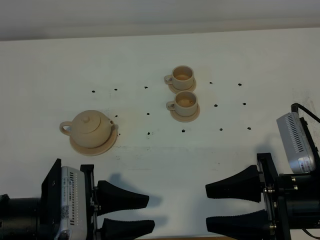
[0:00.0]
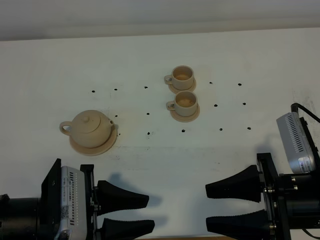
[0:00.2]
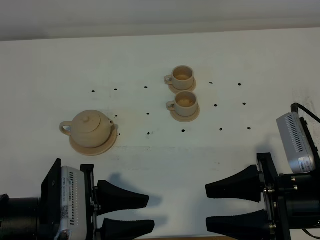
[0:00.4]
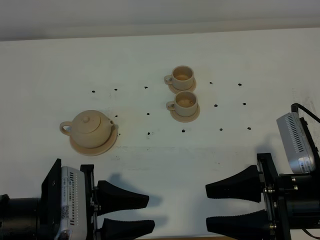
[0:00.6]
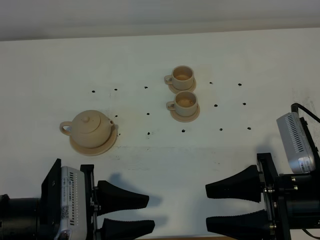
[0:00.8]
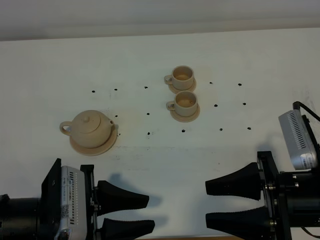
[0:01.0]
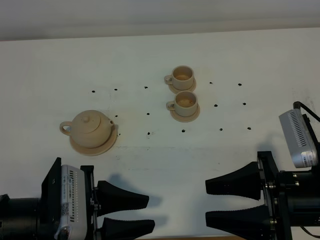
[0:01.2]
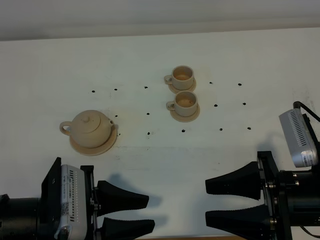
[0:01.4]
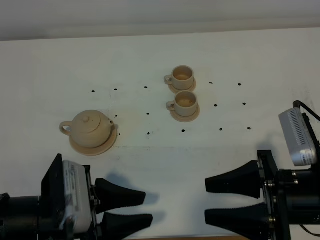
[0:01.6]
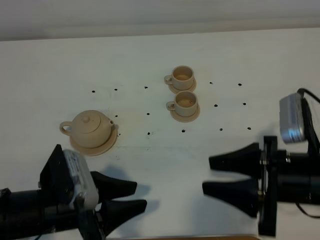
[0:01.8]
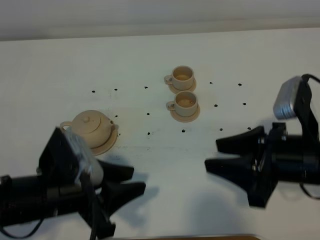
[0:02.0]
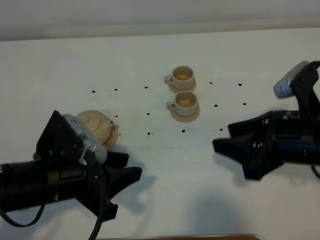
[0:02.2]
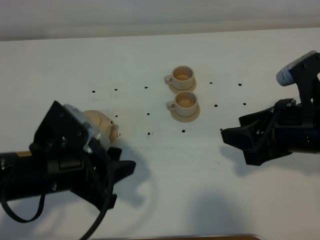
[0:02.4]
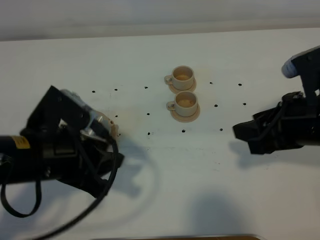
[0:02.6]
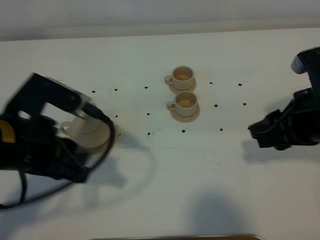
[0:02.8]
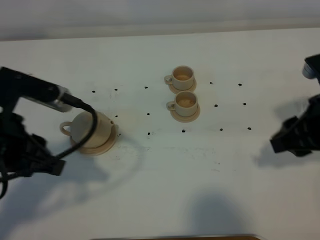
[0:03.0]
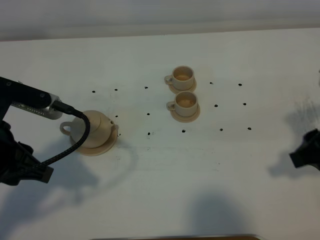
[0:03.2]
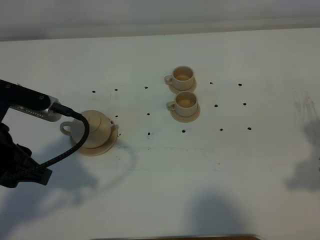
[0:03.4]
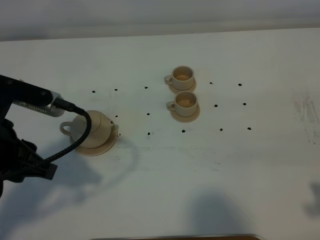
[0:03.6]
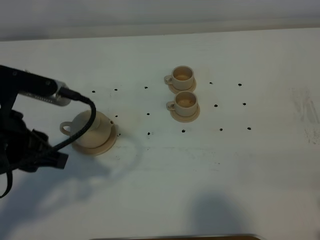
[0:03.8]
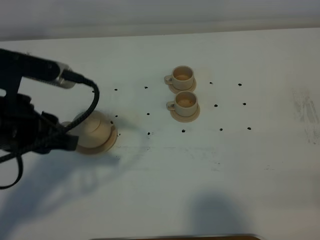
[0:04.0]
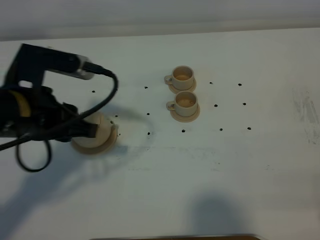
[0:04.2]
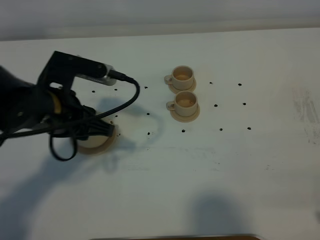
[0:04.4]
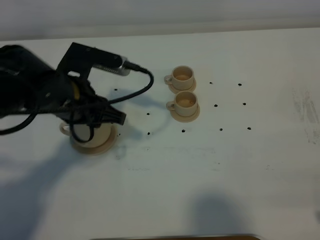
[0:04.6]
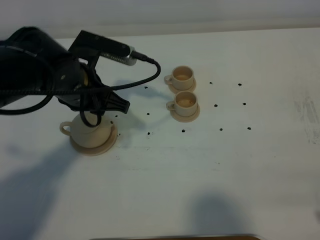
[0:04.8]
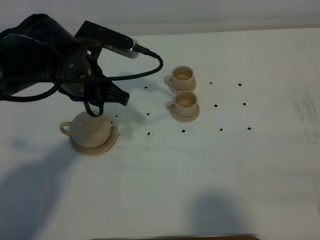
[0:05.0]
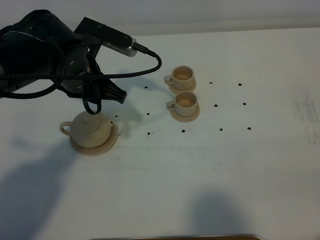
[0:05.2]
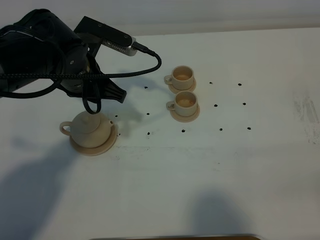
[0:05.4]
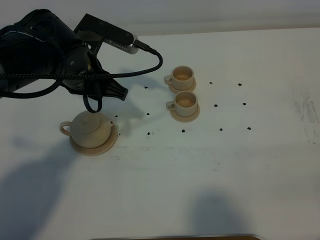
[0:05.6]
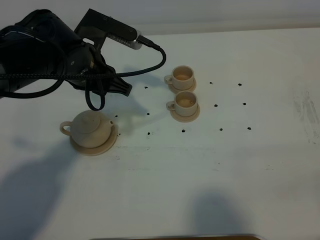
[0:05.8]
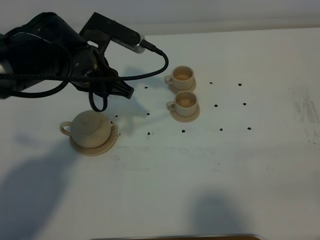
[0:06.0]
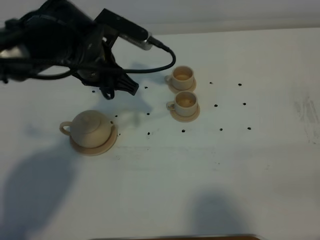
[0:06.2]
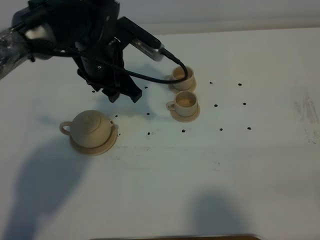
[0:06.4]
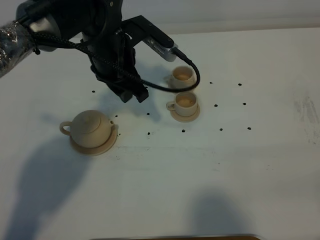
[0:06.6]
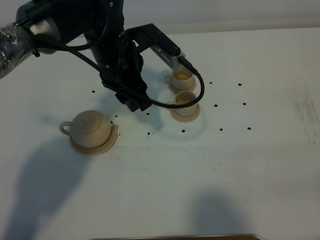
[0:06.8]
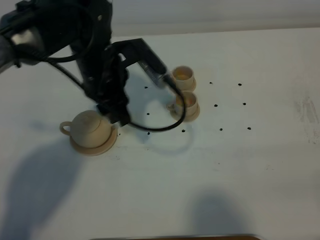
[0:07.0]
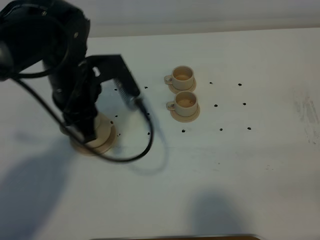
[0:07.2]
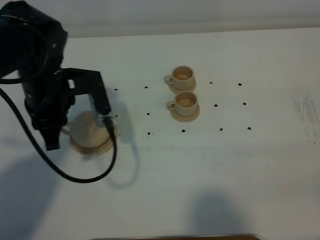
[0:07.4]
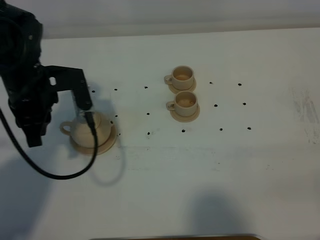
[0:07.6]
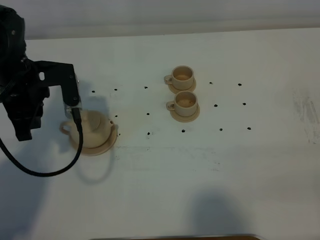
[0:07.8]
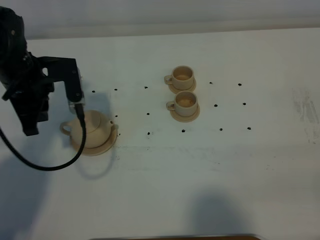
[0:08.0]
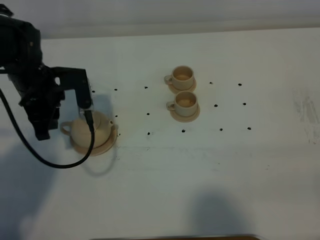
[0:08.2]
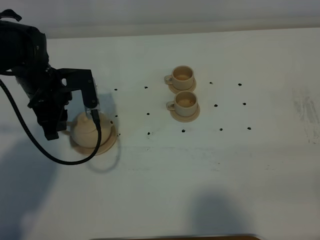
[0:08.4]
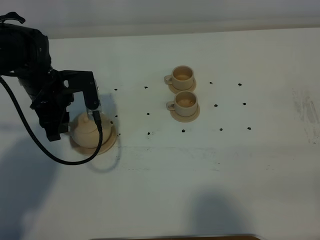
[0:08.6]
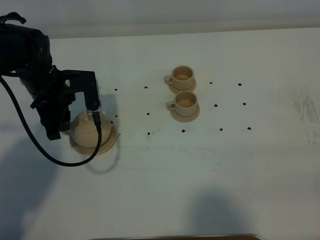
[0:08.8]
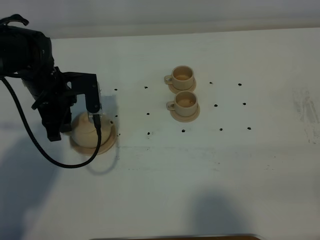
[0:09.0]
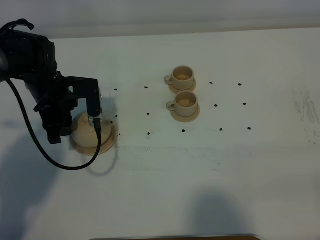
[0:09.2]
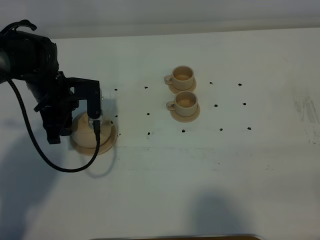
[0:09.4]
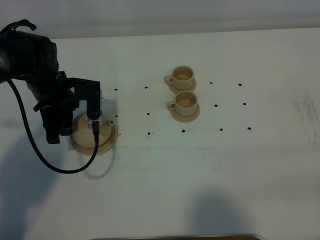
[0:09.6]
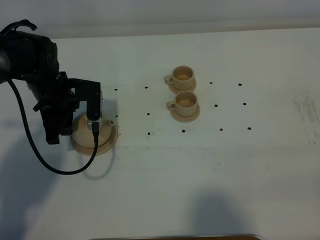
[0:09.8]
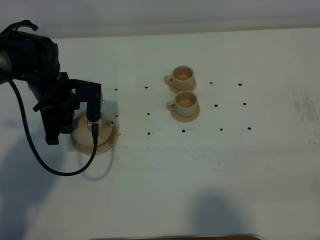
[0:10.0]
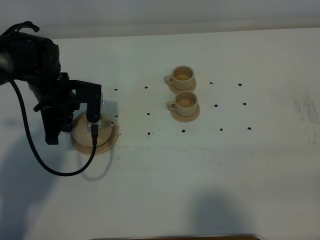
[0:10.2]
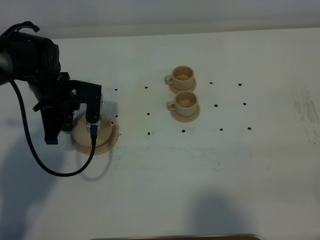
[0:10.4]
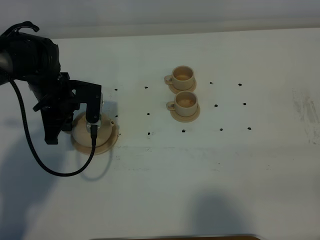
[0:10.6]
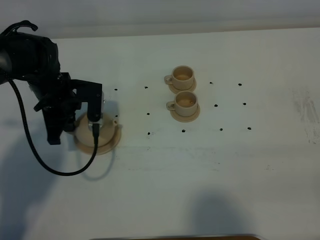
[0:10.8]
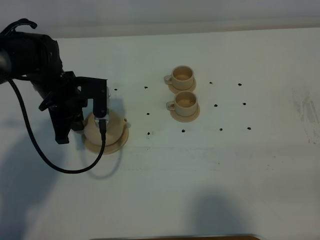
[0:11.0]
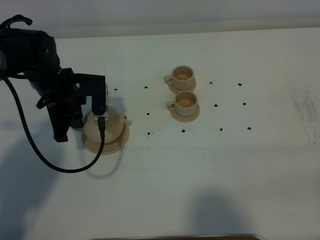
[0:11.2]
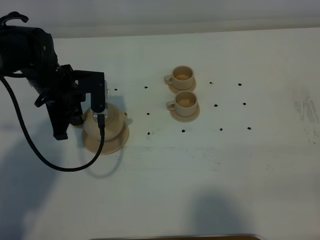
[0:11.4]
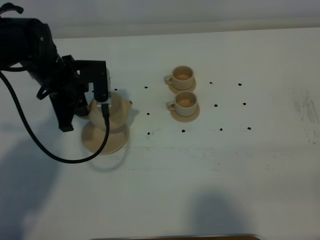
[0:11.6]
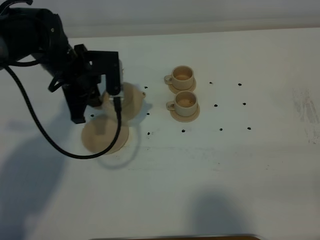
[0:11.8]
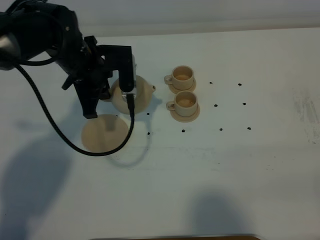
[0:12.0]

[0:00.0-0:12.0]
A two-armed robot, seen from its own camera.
Task of the whole recording: grasp the brown teapot and pour the tea into the two brown teacups one by one, put the brown teapot back in its original place.
Step, 0:00.0 to 0:11.2: Pick up the teapot with the left gripper.
0:00.0 to 0:01.6: There are only small adjustments of the grippers.
0:01.6 to 0:03.0: The right gripper heads forward, upward and to the right, covering roughly 10 cm; the left gripper travels upward and forward by about 15 cm.
0:03.0 to 0:04.4: The left gripper goes roughly 10 cm forward and downward. Meanwhile the right gripper goes approximately 20 cm backward.
0:04.4 to 0:06.0: The right gripper closes up. Meanwhile the left gripper moves forward, some 10 cm.
0:06.0 to 0:07.6: The left gripper shifts approximately 10 cm to the left.
0:07.6 to 0:09.0: The left gripper is displaced downward by approximately 5 cm, and opens.
0:09.0 to 0:10.4: The left gripper closes up.
0:10.4 to 0:12.0: The left gripper moves to the right and upward, about 10 cm.

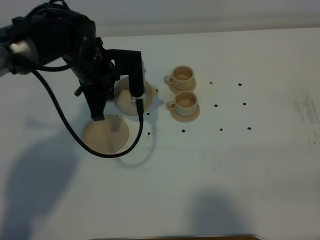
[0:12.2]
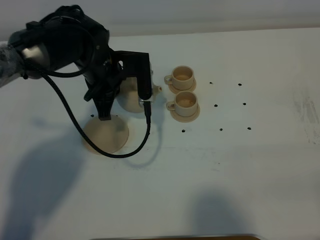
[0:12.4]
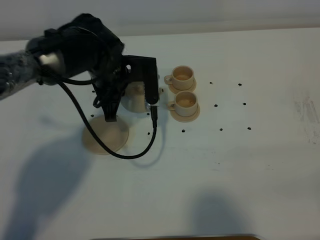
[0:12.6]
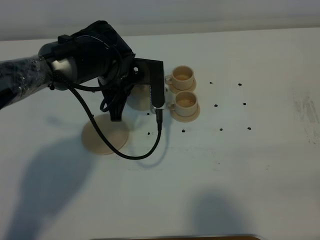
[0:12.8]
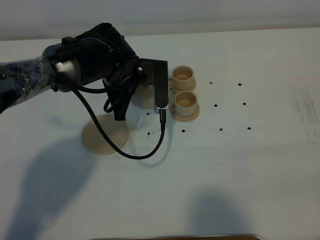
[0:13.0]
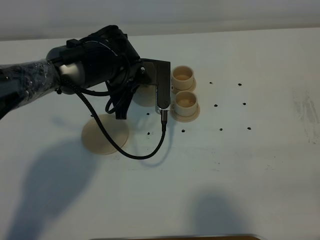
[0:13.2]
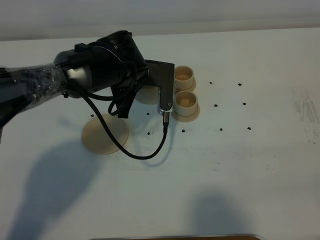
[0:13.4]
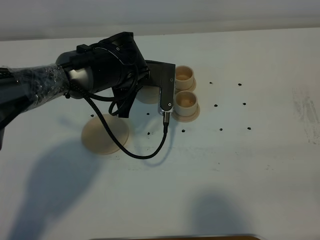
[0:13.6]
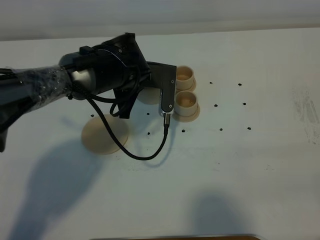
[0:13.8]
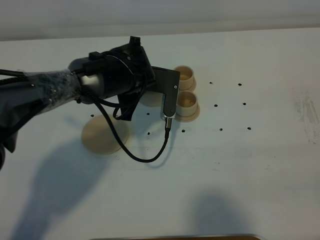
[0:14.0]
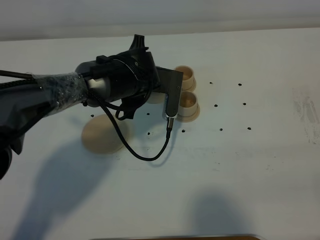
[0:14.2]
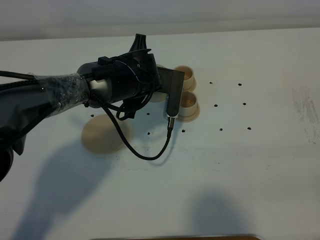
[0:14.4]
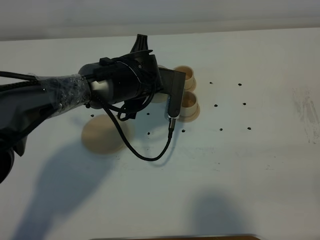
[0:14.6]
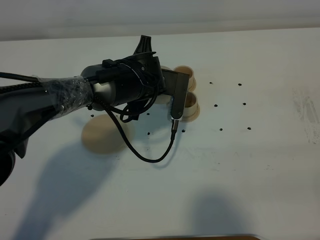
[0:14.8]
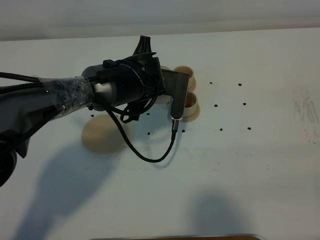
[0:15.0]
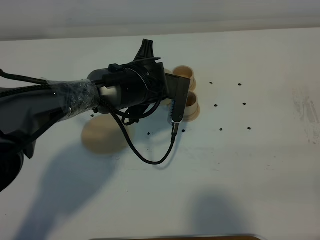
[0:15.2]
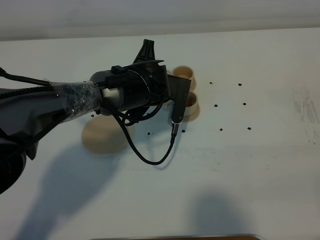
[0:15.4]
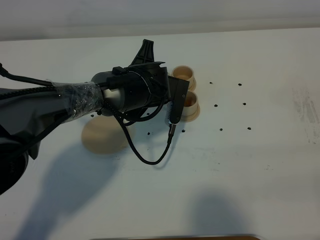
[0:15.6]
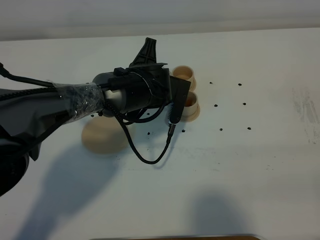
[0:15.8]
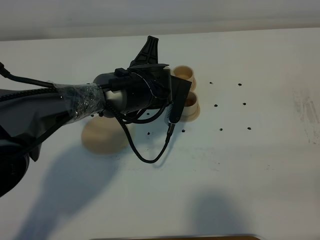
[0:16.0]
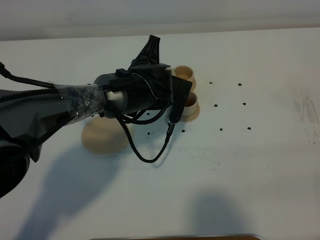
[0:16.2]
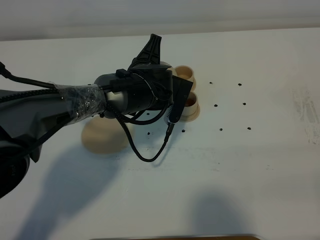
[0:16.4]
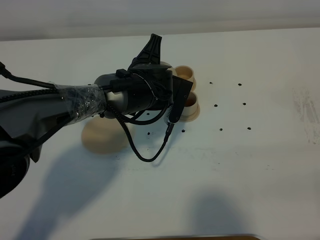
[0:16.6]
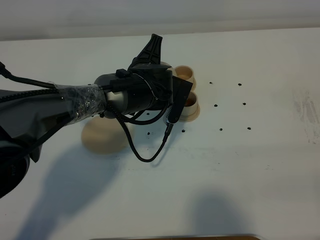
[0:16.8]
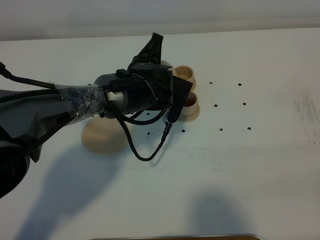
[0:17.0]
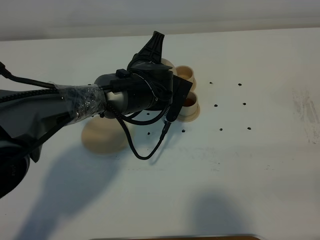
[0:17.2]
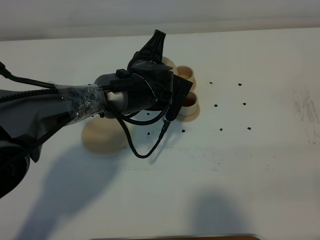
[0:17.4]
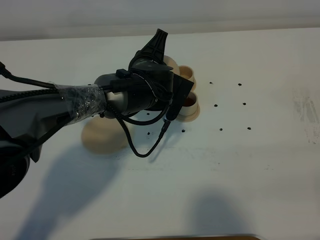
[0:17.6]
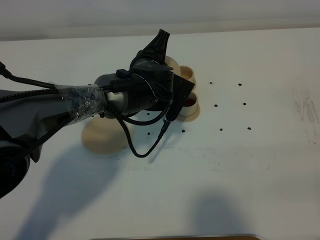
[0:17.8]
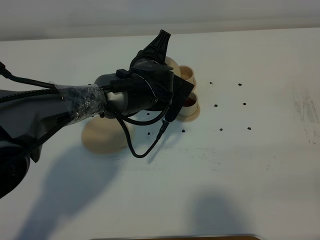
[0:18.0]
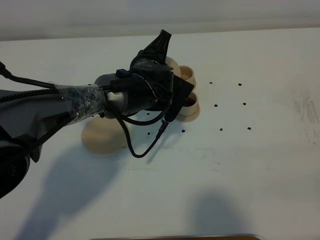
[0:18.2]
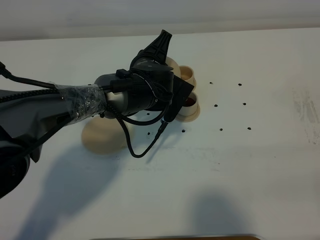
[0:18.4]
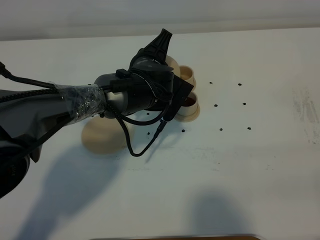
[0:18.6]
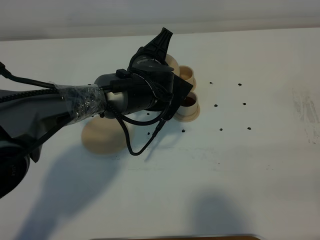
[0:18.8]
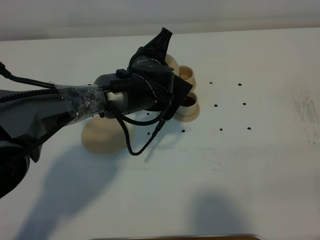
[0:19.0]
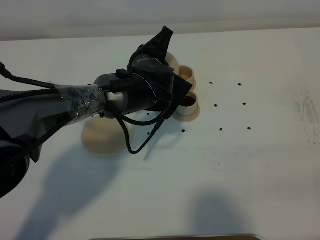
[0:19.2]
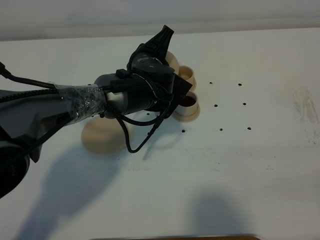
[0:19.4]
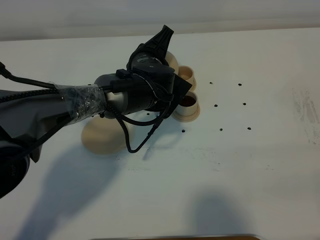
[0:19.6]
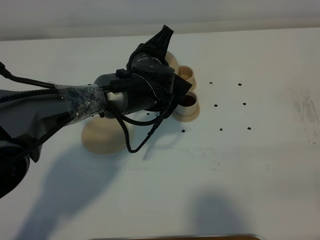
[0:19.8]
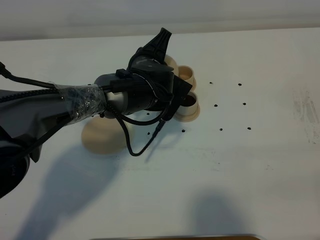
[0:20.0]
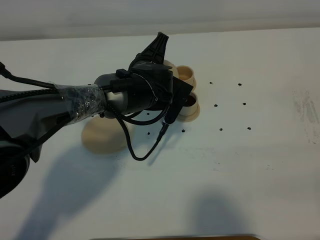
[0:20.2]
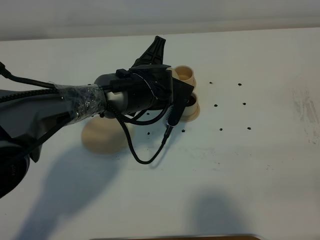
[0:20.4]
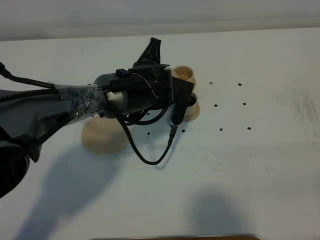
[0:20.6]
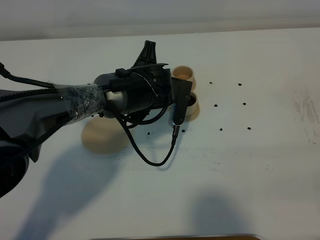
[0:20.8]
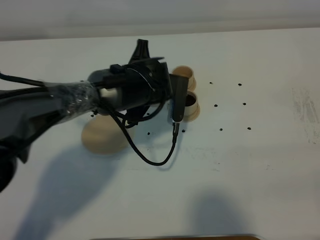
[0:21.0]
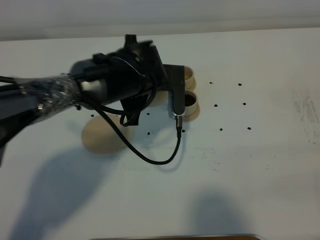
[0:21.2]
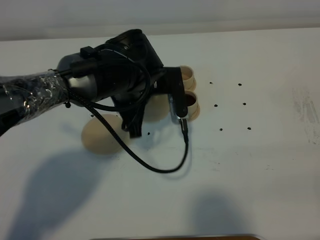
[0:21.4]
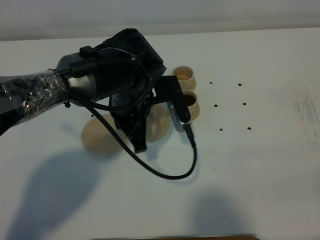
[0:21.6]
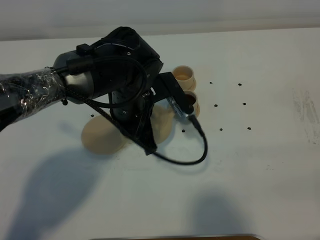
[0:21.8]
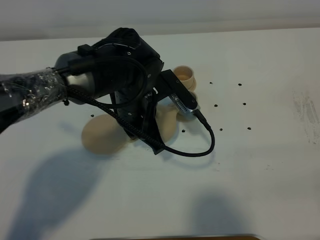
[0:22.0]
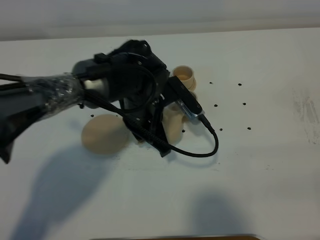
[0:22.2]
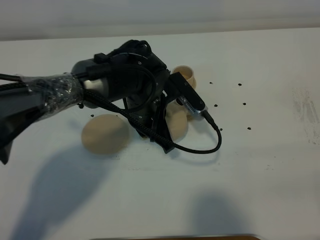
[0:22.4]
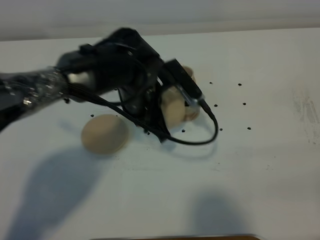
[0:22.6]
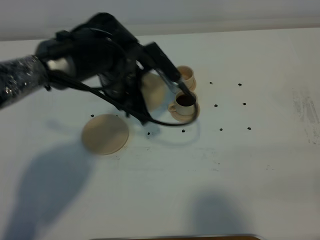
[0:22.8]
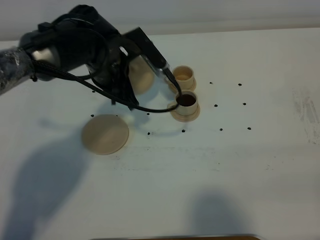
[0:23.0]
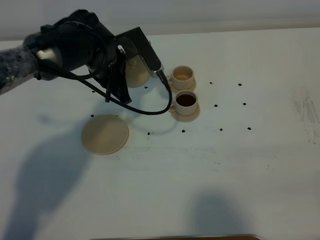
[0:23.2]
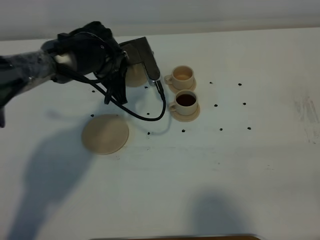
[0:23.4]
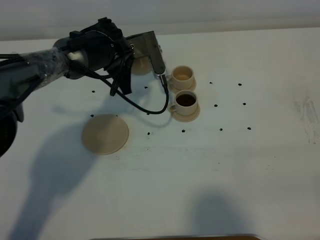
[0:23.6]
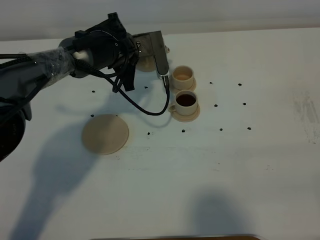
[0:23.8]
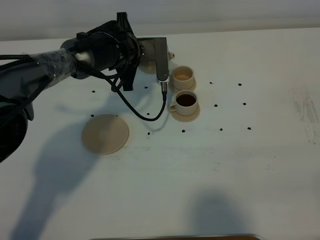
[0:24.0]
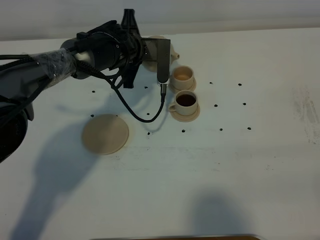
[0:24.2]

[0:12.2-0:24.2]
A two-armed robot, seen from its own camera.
Task of the whole recording: grasp the brown teapot and pour the tea into the two brown teacups one by one, put the brown teapot back in its original place.
0:12.2 to 0:13.8: The left gripper goes approximately 5 cm to the right.
0:13.8 to 0:16.6: There are only small adjustments of the grippers.
0:16.6 to 0:19.8: The grippers make only small movements.
0:19.8 to 0:21.2: The left gripper changes place by about 5 cm.
0:22.6 to 0:24.2: The left gripper is displaced forward by approximately 15 cm.
